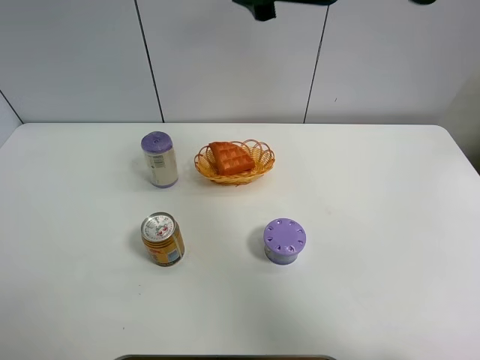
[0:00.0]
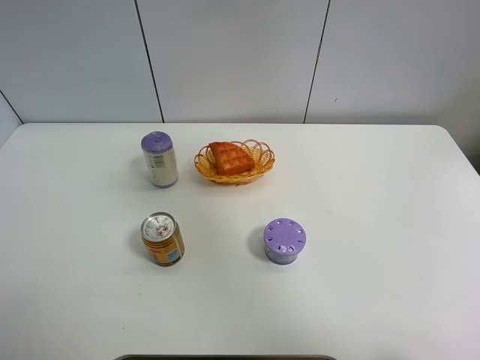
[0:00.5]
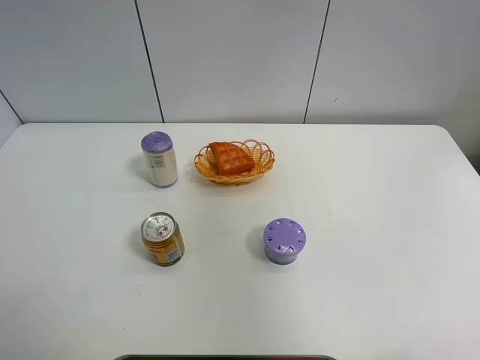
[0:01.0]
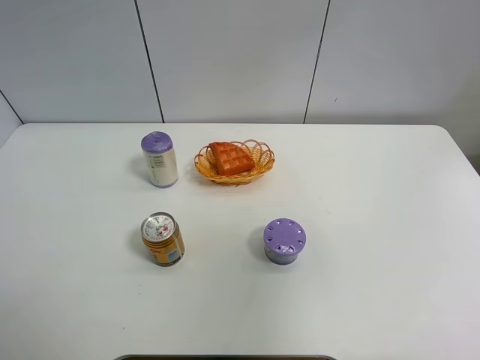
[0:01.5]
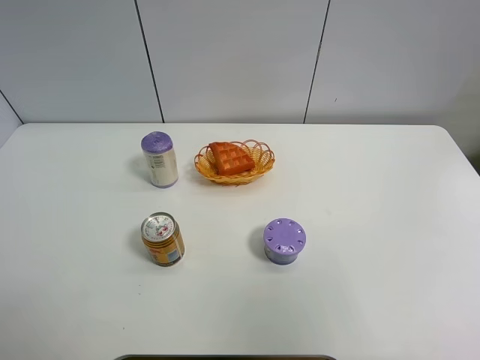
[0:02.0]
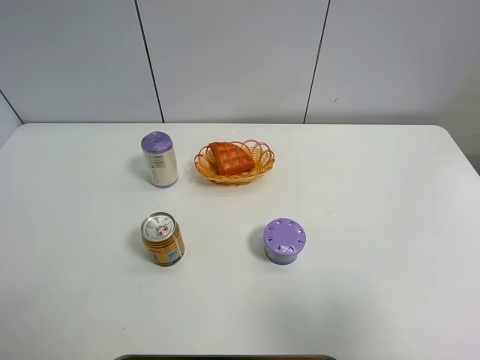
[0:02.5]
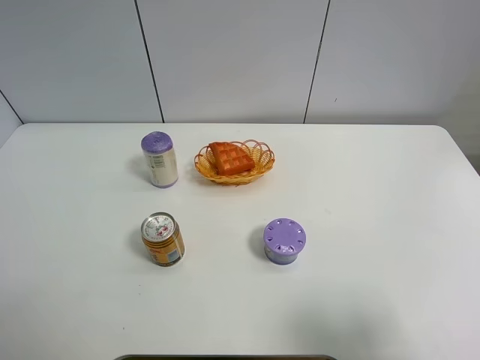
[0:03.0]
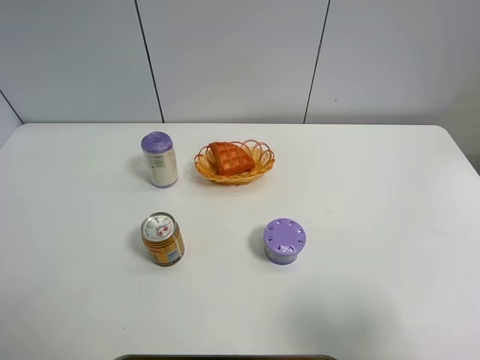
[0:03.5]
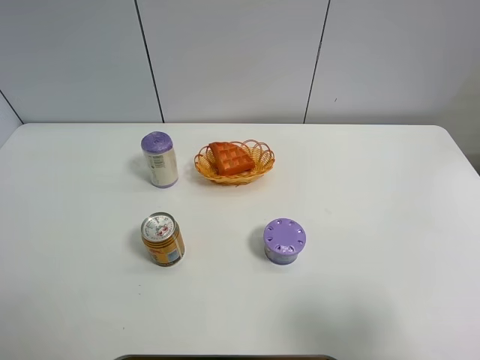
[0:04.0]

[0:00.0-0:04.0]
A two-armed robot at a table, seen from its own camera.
Task of the whole recording: Put the bakery in the basket.
0:00.0 to 0:02.0: The right gripper goes roughly 35 cm backward and to the right.
0:02.0 to 0:04.0: The right gripper goes approximately 15 cm downward.

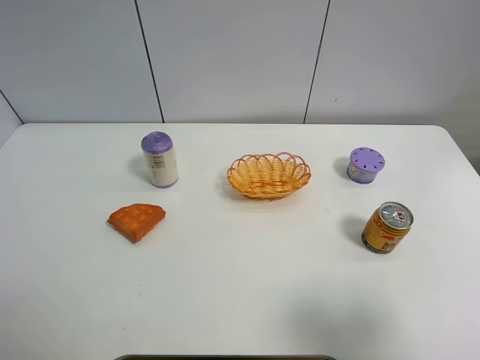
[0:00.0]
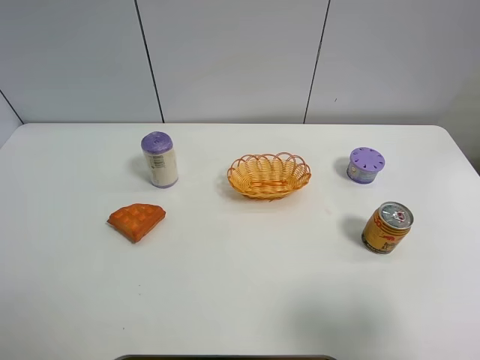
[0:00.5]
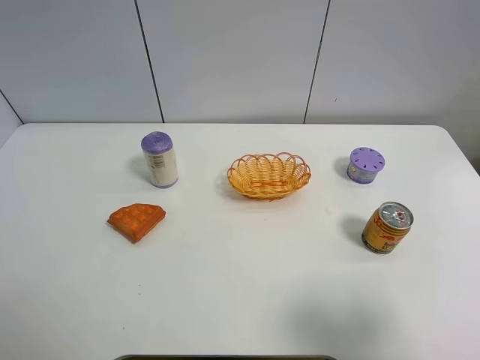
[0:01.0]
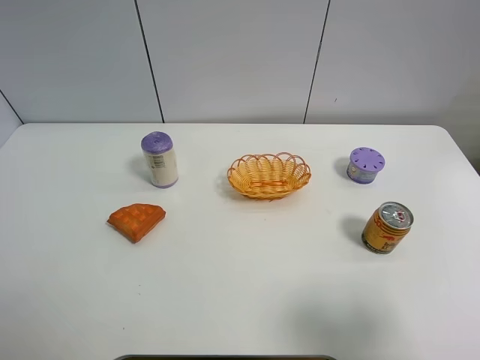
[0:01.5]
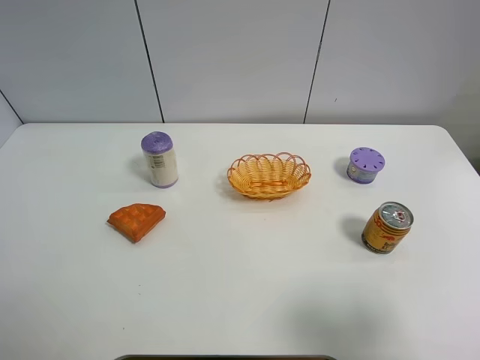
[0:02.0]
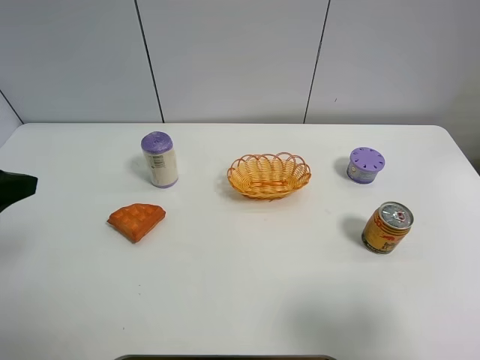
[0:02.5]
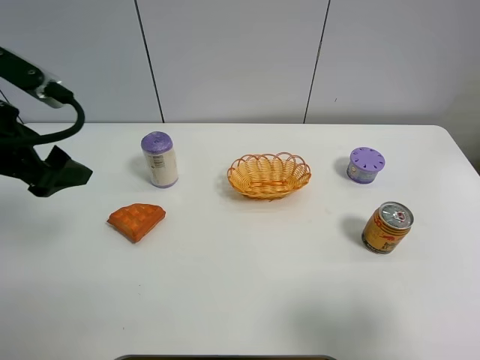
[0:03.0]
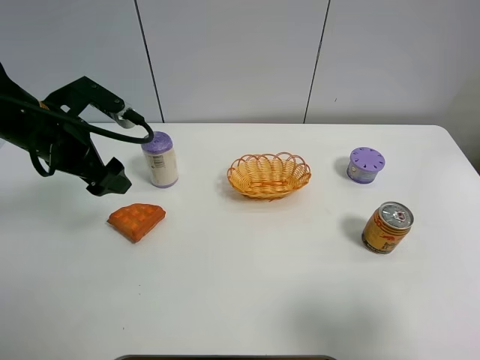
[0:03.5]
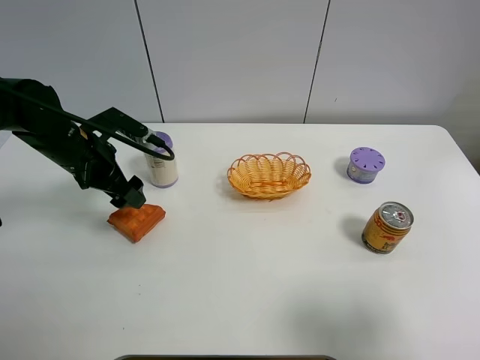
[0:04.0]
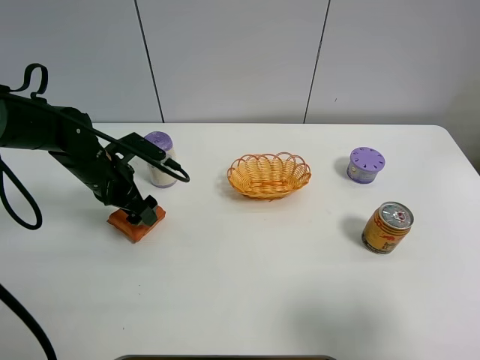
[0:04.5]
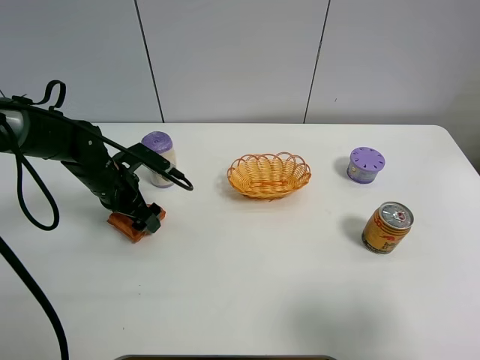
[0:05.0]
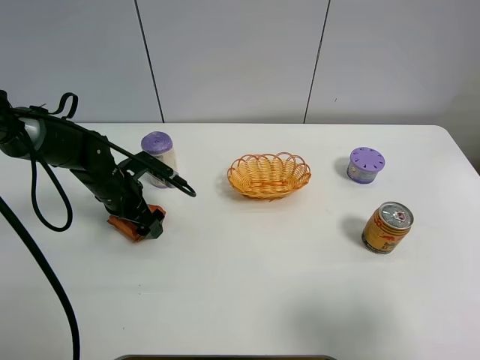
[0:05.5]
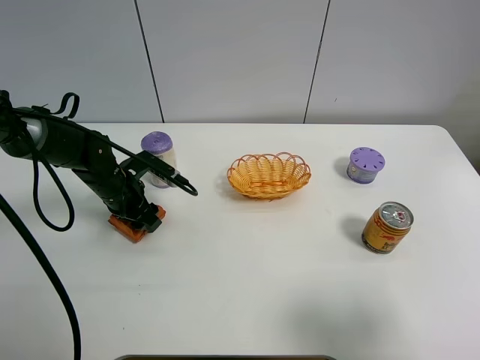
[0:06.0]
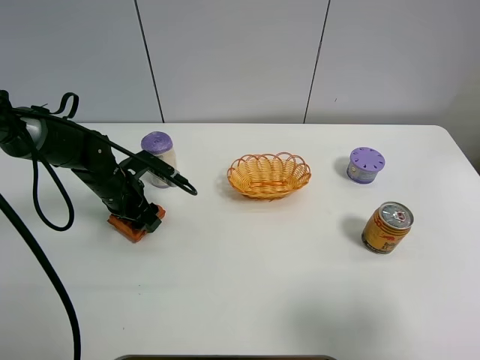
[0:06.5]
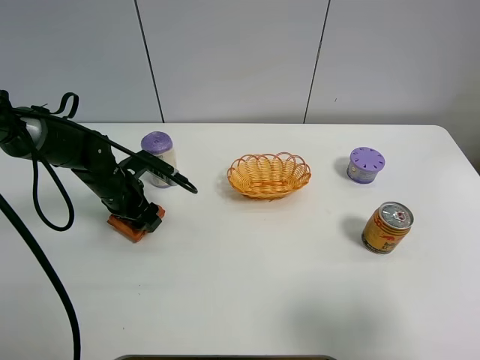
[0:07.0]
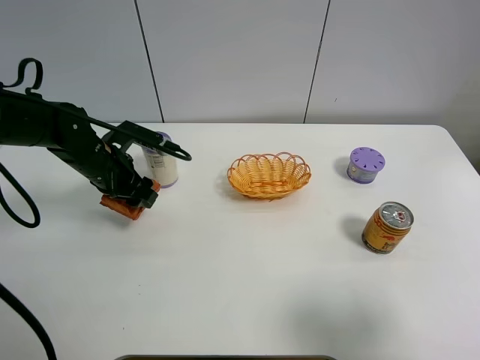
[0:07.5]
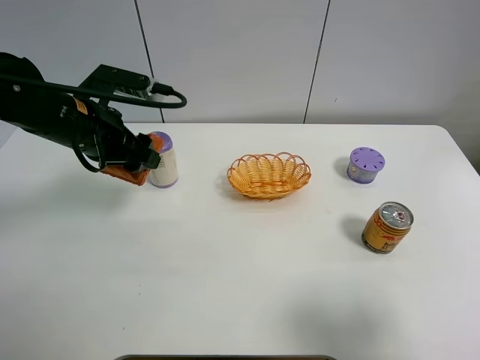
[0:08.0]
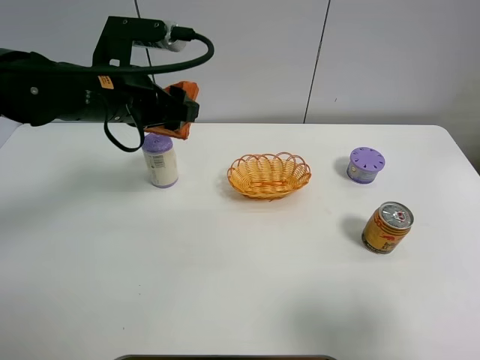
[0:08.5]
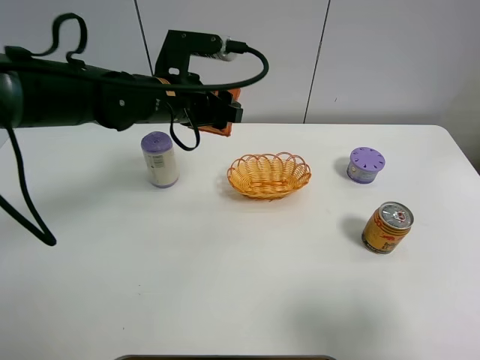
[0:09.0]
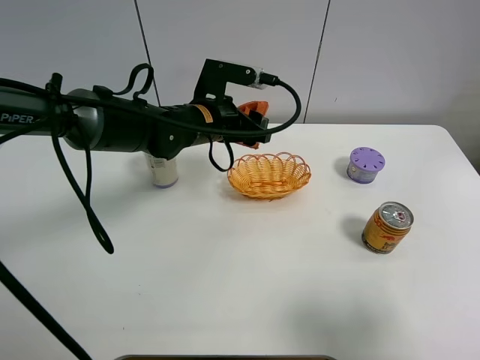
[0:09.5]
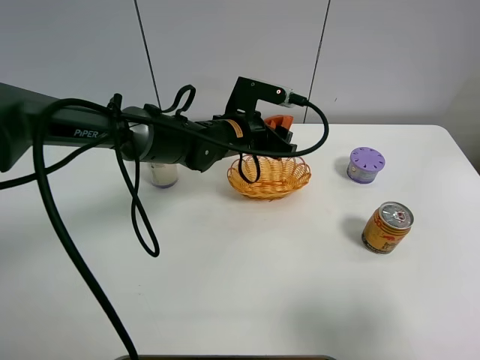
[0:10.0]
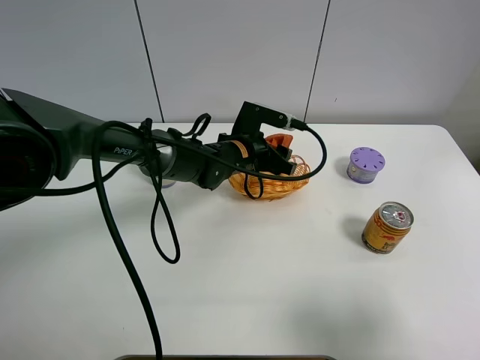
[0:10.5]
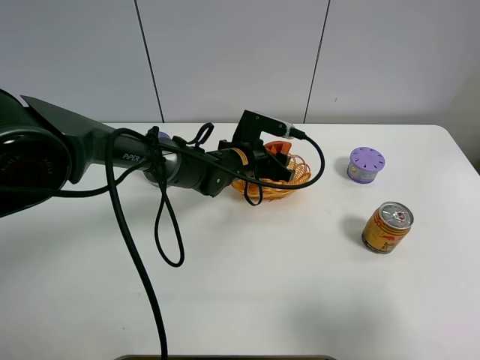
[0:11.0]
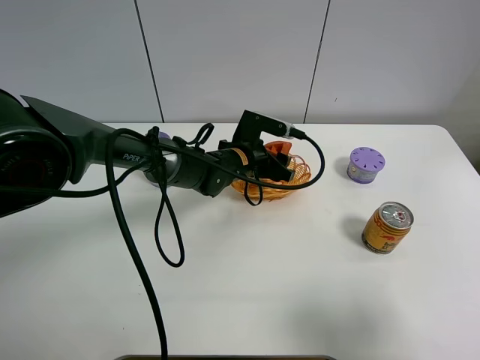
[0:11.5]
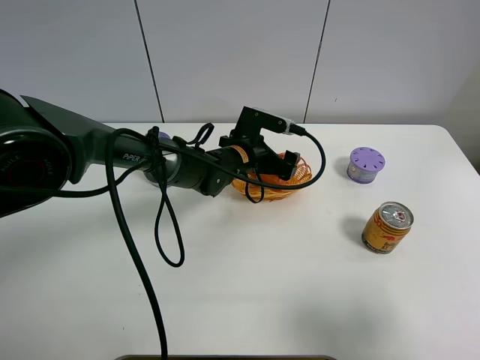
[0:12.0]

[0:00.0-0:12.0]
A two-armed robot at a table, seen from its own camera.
Task of the whole recording: Put the bakery in the basket.
0:02.0 to 0:04.0: The left gripper heads forward, downward and to the right, covering approximately 30 cm.
0:04.0 to 0:06.0: The left gripper shifts approximately 10 cm downward, and closes up.
0:06.0 to 0:08.0: The left gripper is displaced upward by some 15 cm.
0:08.0 to 0:10.0: The left gripper heads to the right and downward, covering approximately 20 cm.
0:10.0 to 0:12.0: The left gripper heads downward, covering some 5 cm, and opens.

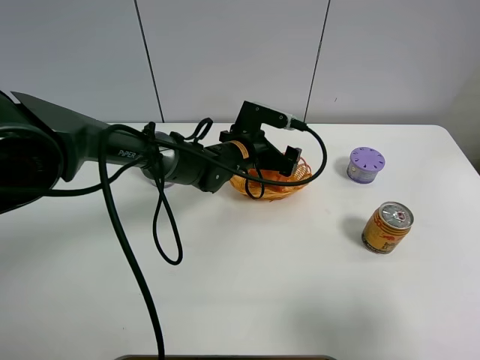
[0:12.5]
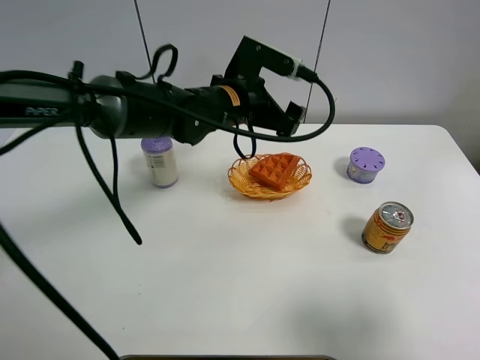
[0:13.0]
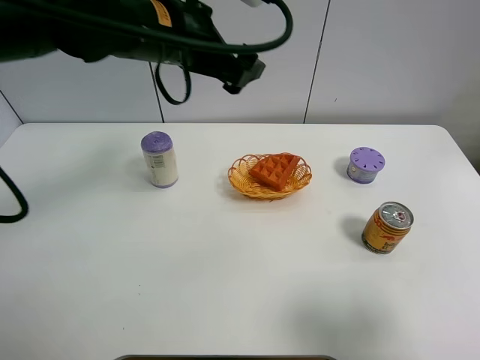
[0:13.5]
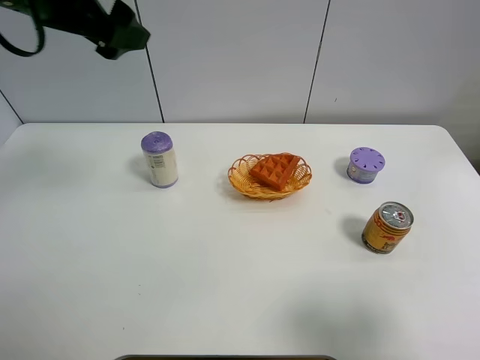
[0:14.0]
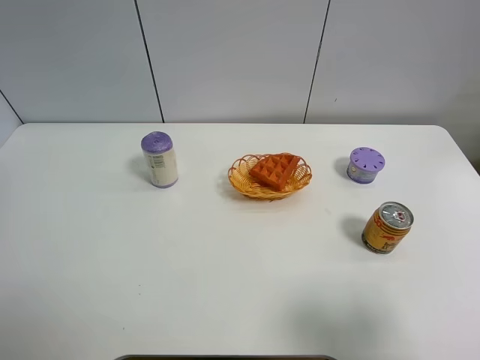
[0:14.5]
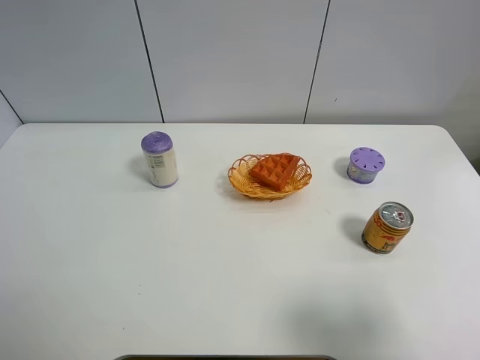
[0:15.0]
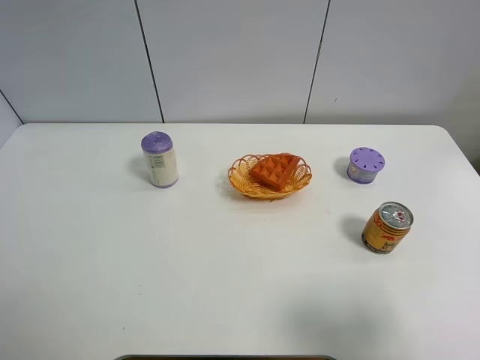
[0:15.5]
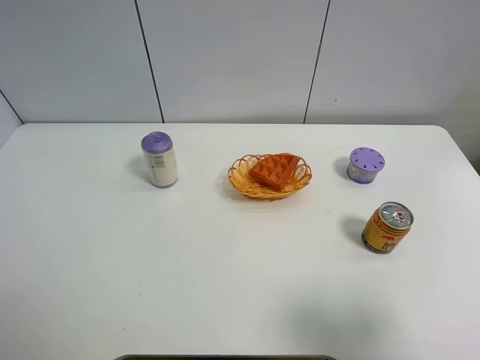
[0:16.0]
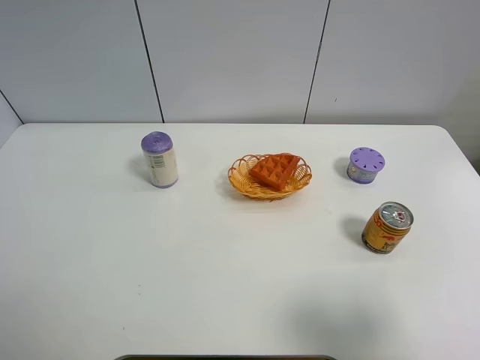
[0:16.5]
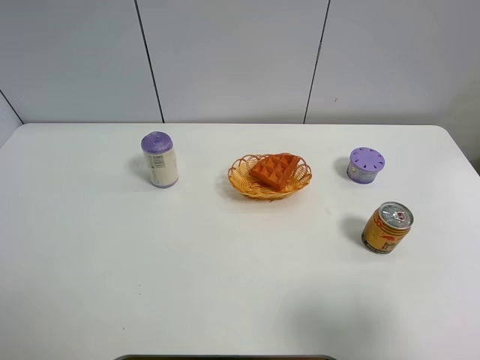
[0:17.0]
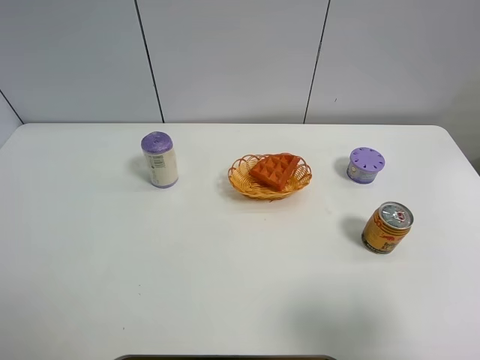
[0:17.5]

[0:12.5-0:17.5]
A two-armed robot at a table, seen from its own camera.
Task of the whole recording: Put the bakery in the basket.
0:12.5 to 0:15.0: The left gripper shifts roughly 60 cm upward, to the left and backward.
